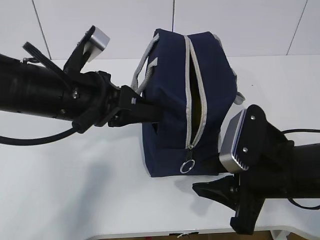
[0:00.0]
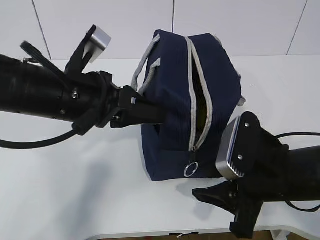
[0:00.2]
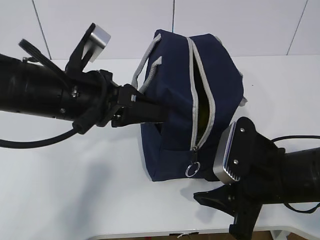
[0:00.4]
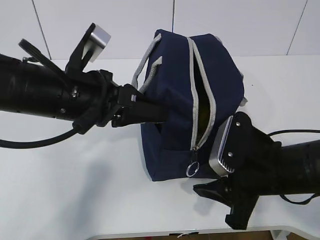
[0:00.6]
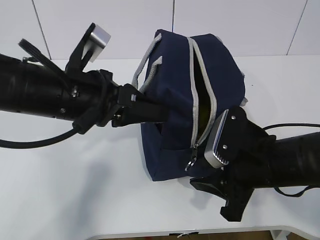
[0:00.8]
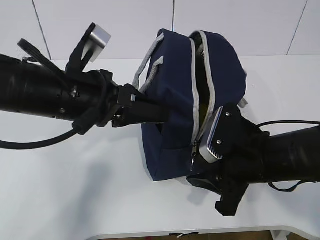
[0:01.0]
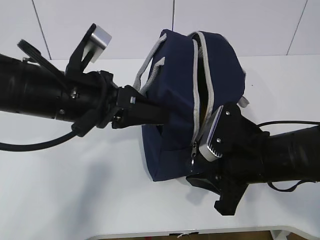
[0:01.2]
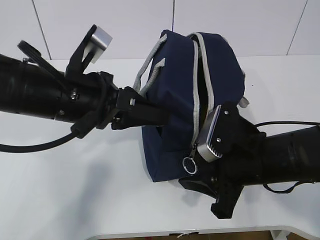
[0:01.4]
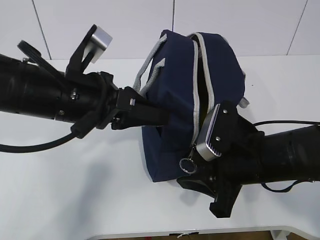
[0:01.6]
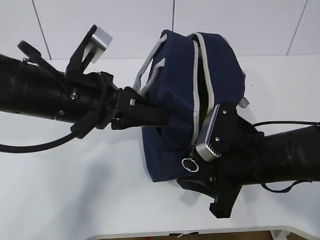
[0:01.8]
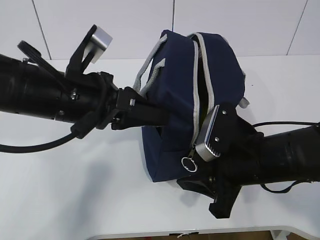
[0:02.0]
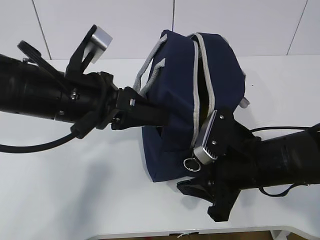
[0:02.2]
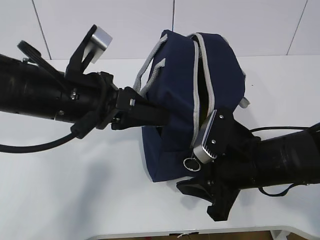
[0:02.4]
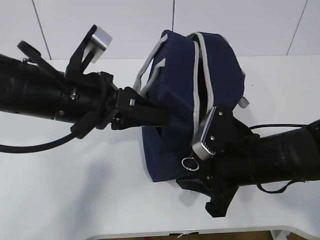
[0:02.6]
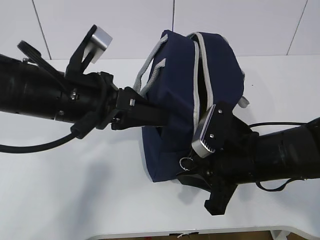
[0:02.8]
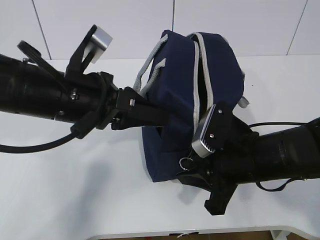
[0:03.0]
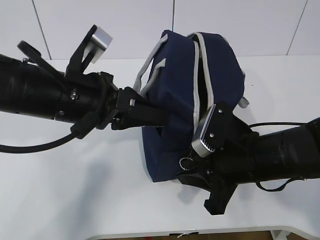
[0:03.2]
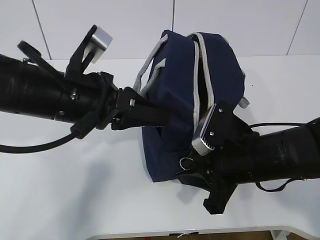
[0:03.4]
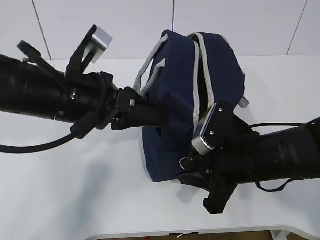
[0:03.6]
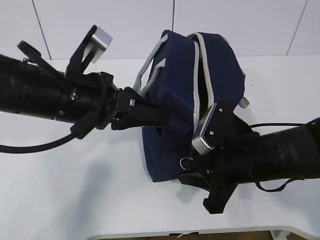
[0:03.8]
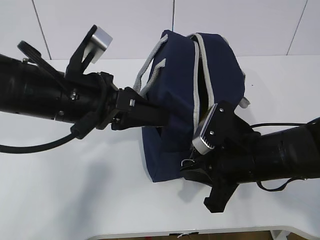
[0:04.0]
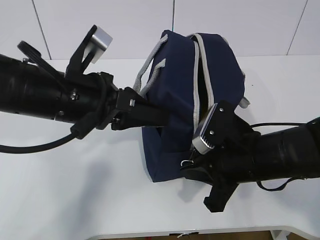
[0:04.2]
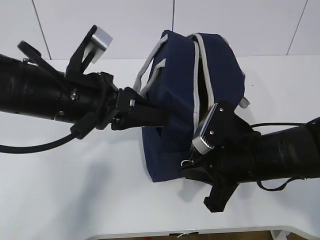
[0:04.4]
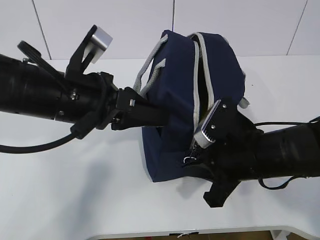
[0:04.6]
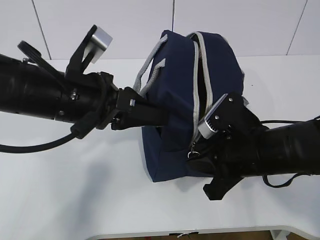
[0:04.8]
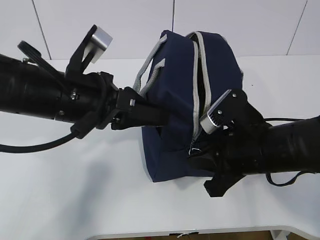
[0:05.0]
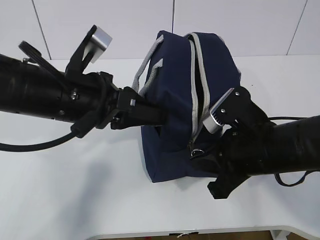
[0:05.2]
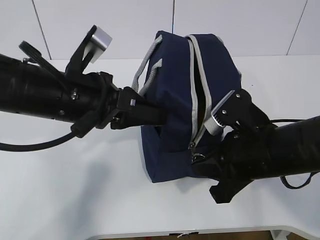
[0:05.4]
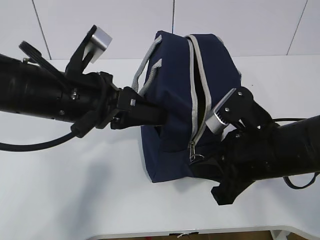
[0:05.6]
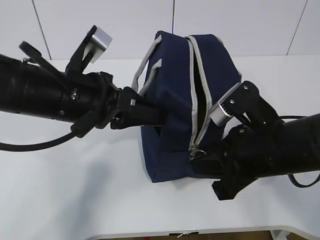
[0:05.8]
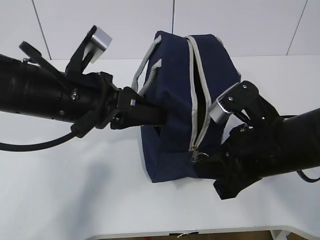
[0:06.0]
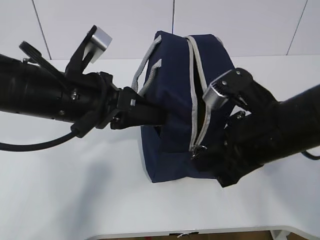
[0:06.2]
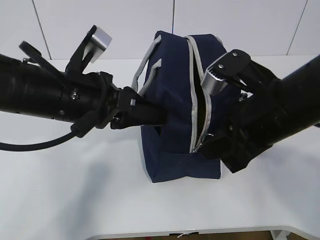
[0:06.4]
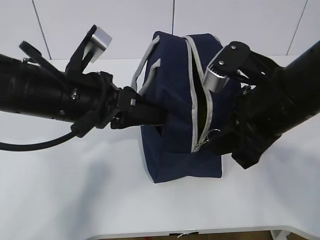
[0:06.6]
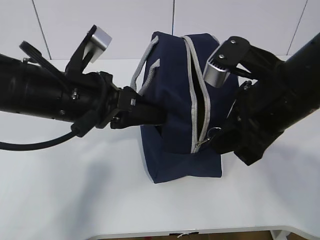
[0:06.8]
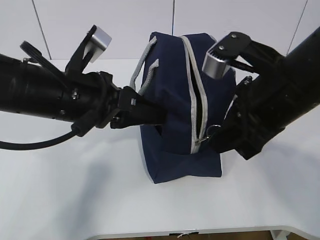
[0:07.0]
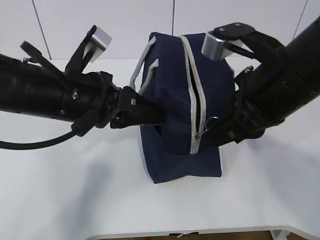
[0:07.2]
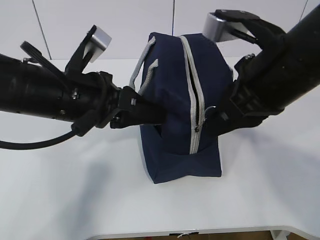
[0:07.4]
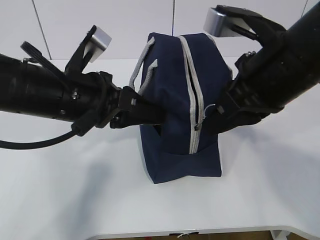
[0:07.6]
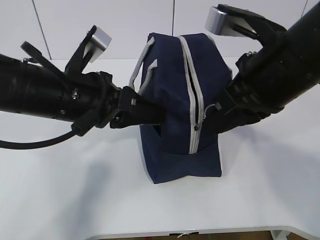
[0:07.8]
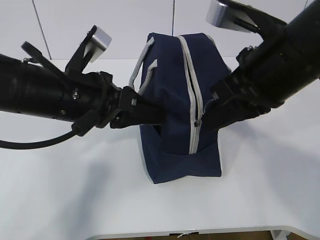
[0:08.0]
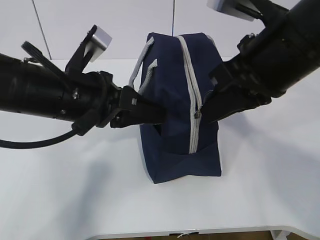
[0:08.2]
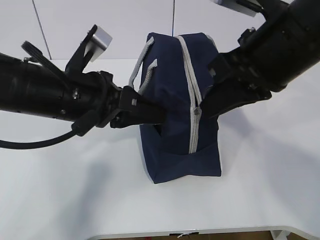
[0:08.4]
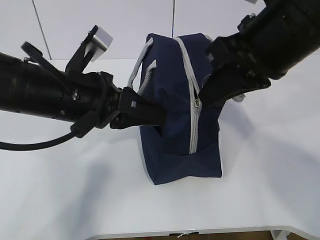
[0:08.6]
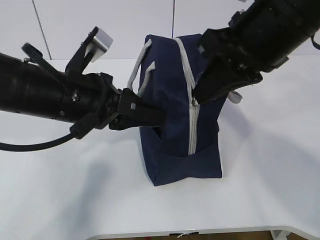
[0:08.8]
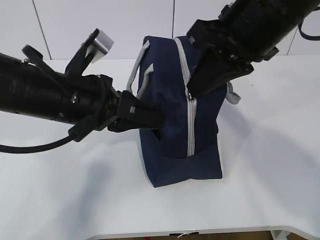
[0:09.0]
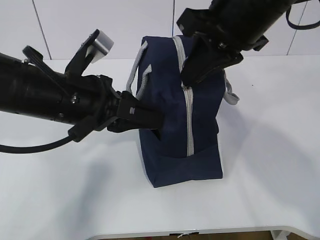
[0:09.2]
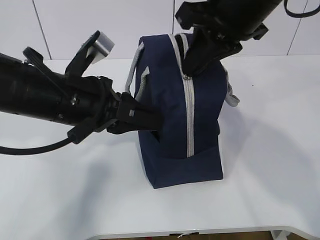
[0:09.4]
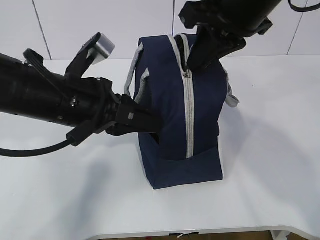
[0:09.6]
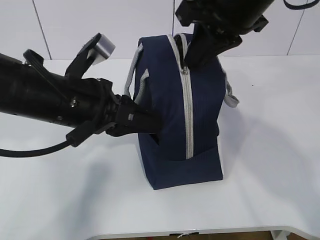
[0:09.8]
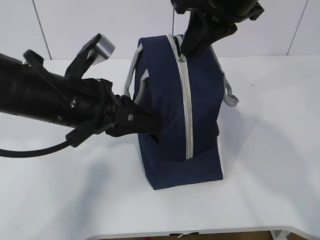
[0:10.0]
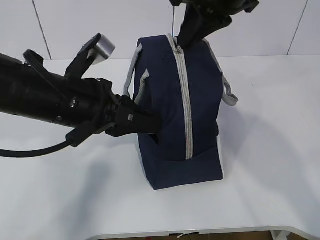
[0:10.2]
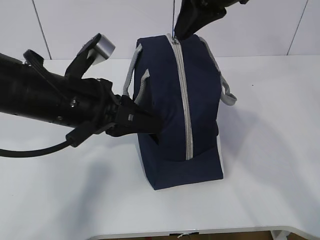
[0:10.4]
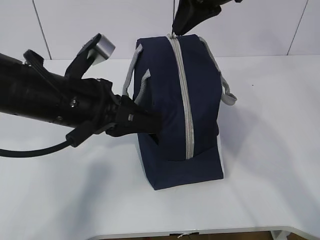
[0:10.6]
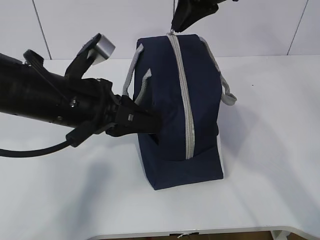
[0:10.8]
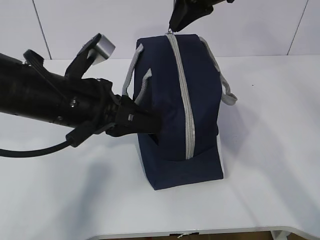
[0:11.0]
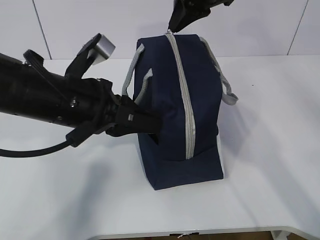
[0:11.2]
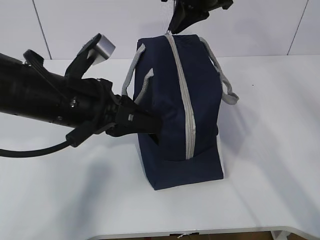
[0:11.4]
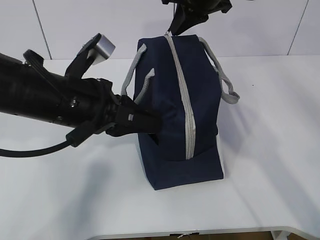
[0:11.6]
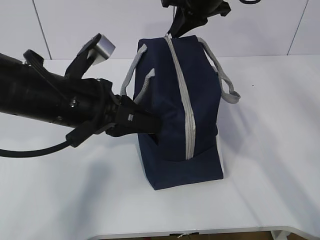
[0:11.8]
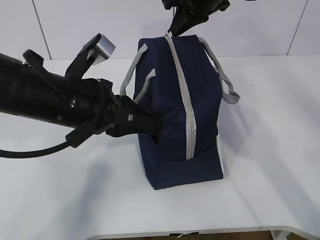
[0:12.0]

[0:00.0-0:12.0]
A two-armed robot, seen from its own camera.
Step, 0:02.4 to 0:10.0: Pull the zipper with your right hand.
0:00.0 to 0:01.6: The grippers move only a little.
0:01.6 to 0:03.0: The two grippers keep their place.
0:03.0 to 0:04.4: The right gripper closes up.
0:04.4 to 0:06.0: The right gripper changes place by roughly 5 cm.
0:06.0 to 0:07.6: The right gripper moves upward, roughly 10 cm.
0:07.6 to 0:09.0: The right gripper moves some 5 cm.
0:09.0 to 0:10.4: The right gripper moves forward, roughly 10 cm.
0:10.4 to 0:12.0: The right gripper shifts roughly 10 cm forward.

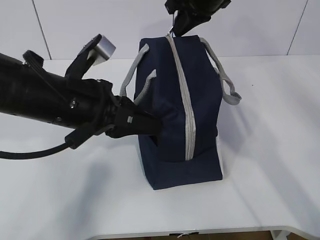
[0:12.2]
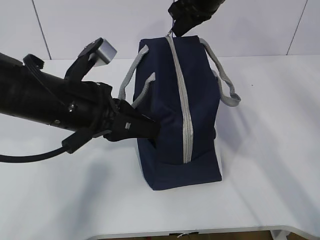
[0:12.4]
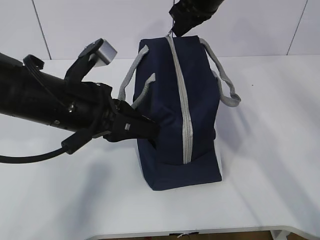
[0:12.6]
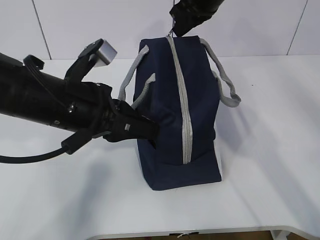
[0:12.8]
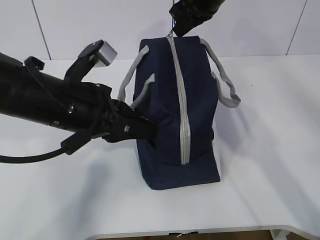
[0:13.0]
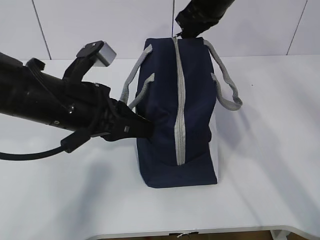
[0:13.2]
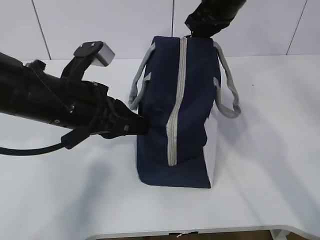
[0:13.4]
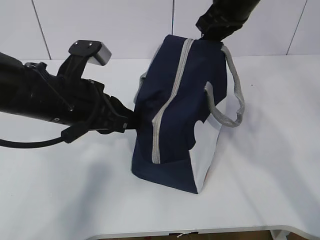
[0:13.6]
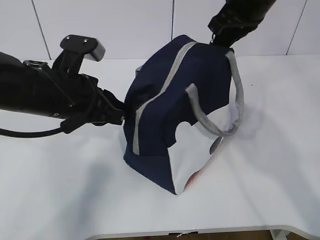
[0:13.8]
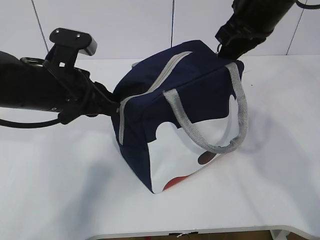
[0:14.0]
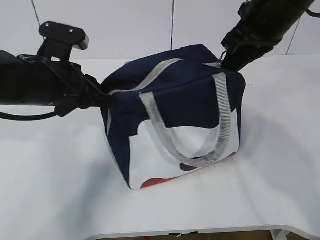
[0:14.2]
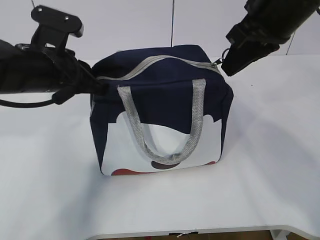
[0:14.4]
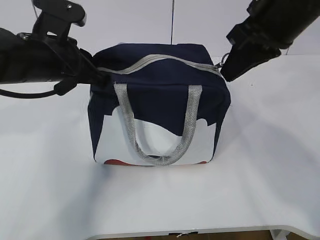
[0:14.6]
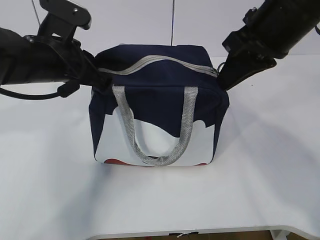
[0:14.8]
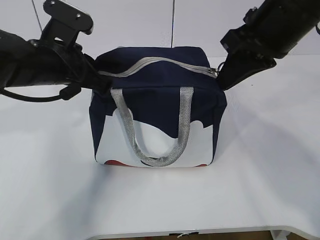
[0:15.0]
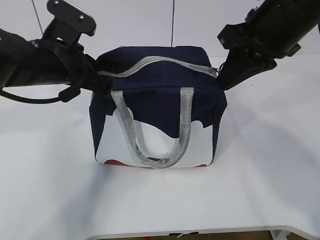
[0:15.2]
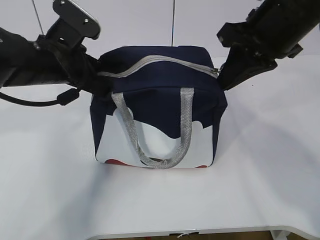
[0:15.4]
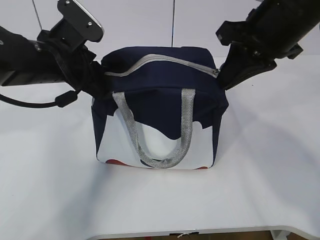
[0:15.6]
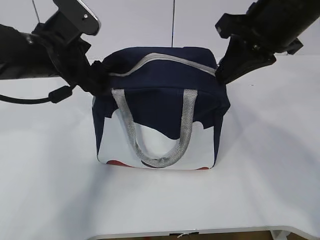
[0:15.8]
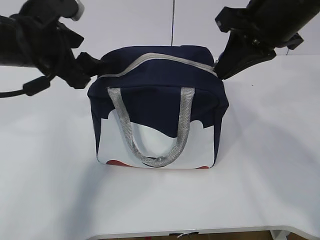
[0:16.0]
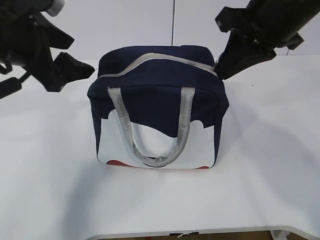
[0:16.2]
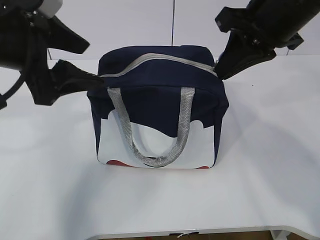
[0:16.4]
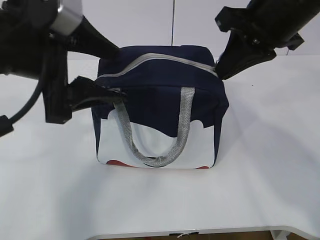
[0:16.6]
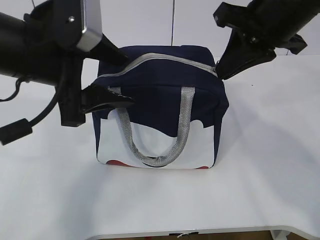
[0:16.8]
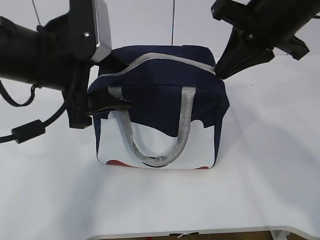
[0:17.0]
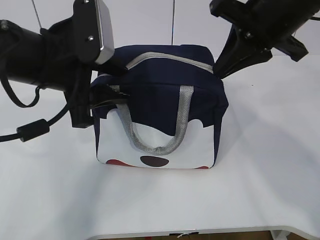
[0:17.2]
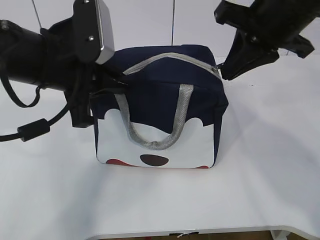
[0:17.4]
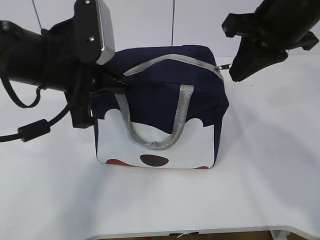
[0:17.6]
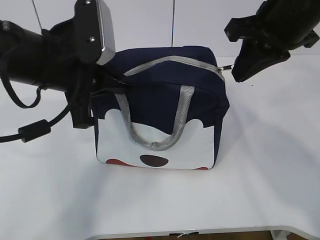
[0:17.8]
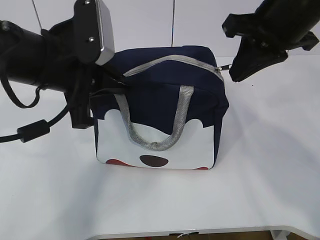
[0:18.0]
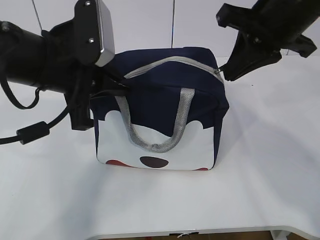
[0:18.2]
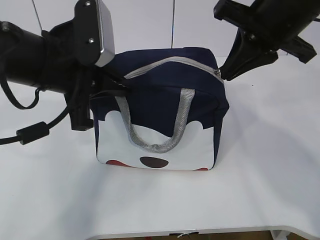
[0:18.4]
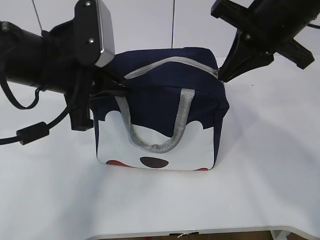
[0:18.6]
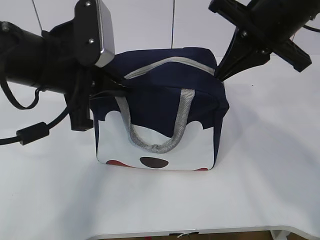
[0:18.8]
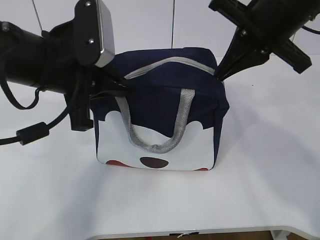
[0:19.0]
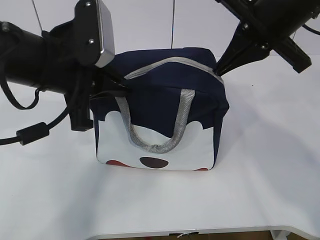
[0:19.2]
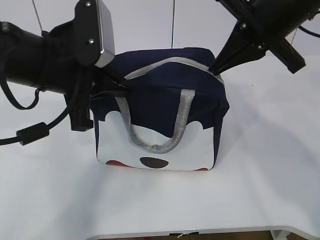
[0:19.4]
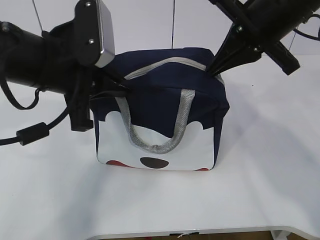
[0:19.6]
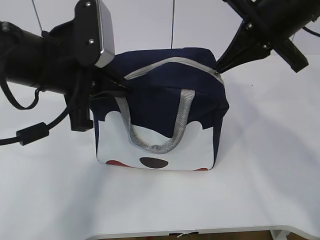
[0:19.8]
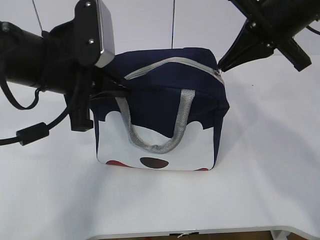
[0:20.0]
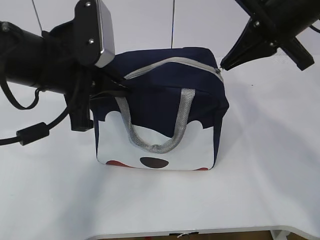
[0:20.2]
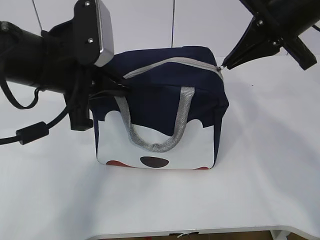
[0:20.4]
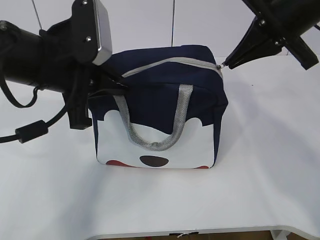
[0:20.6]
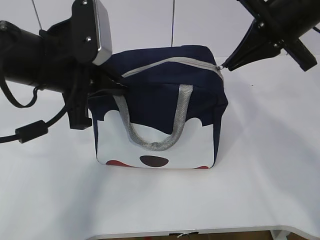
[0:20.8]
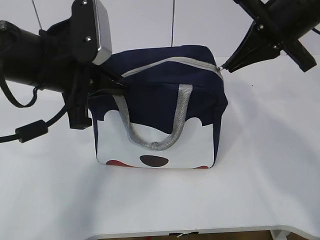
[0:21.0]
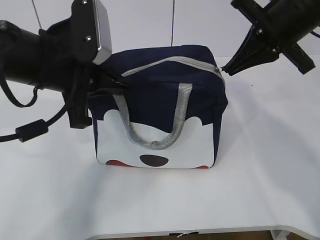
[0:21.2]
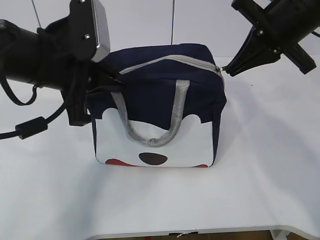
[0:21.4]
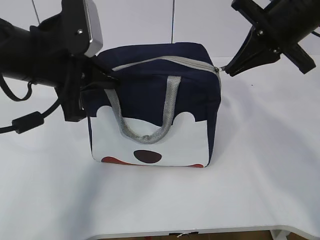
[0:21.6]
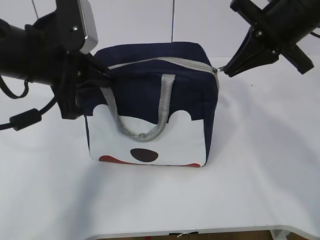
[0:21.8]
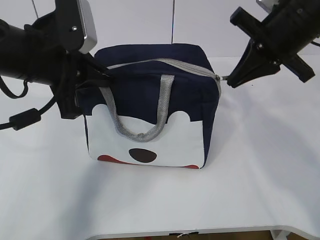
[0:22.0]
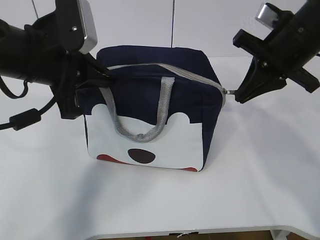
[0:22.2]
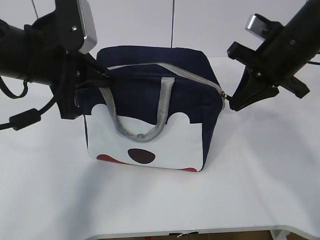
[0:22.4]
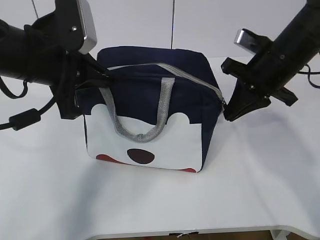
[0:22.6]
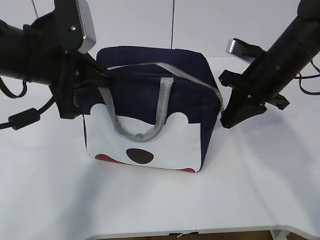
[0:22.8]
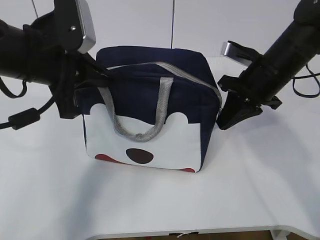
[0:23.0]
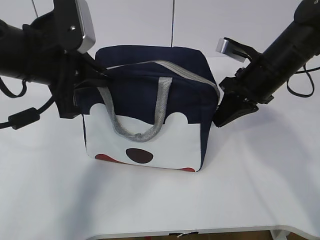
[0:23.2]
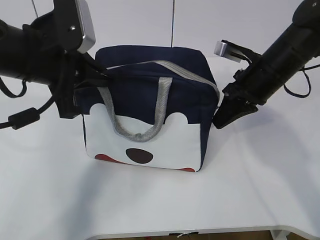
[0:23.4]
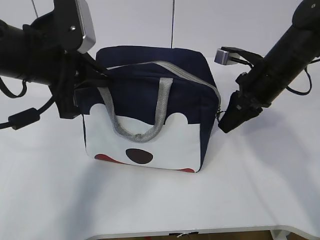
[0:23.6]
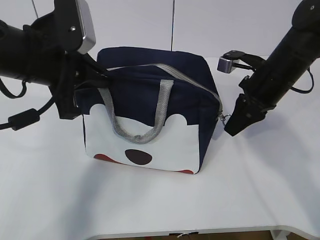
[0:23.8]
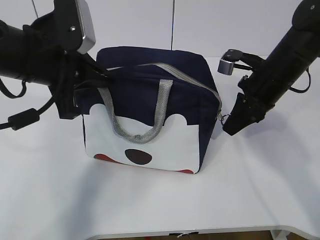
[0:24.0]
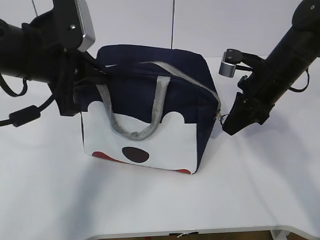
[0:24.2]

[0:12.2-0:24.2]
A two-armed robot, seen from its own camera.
0:12.2 to 0:13.8: The right gripper moves backward, about 5 cm.
0:13.8 to 0:15.2: The left gripper ends up some 5 cm from where it was. Meanwhile the right gripper travels backward by about 10 cm.
0:15.2 to 0:16.6: The left gripper is displaced backward and upward by approximately 10 cm, and opens up.
0:16.6 to 0:18.2: The left gripper closes up.
0:19.8 to 0:21.2: There are only small adjustments of the grippers.
0:21.2 to 0:22.6: The right gripper goes approximately 10 cm downward.
